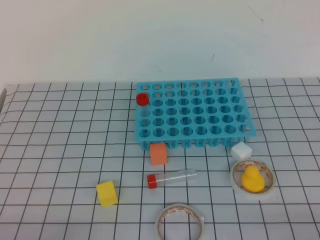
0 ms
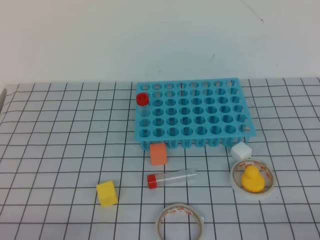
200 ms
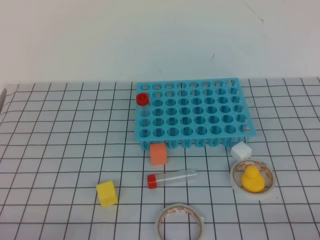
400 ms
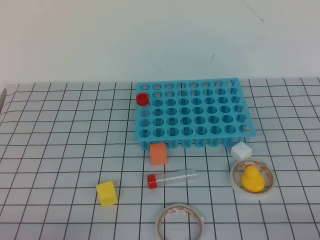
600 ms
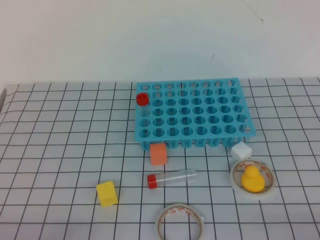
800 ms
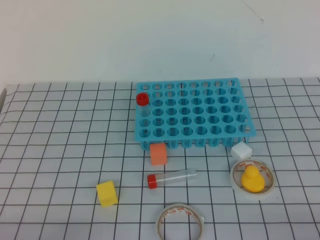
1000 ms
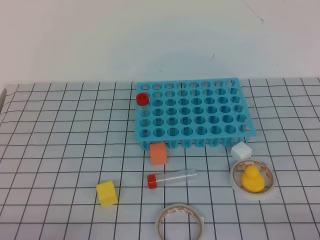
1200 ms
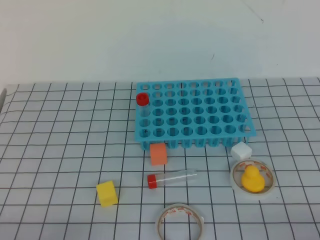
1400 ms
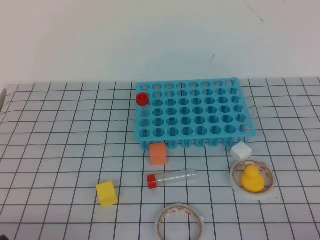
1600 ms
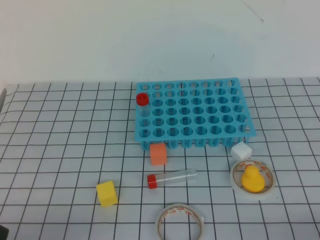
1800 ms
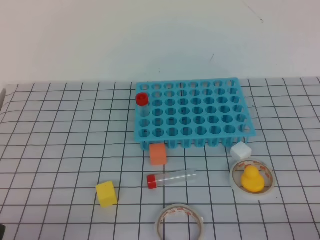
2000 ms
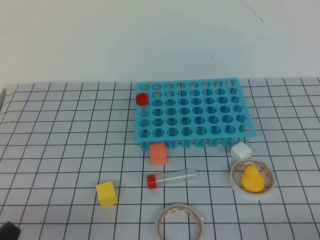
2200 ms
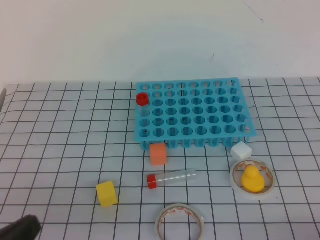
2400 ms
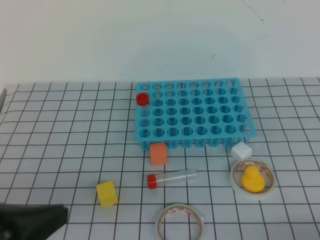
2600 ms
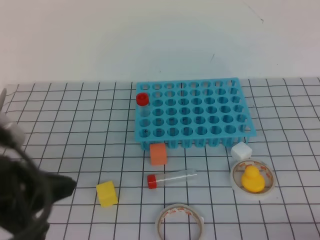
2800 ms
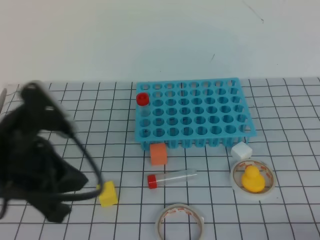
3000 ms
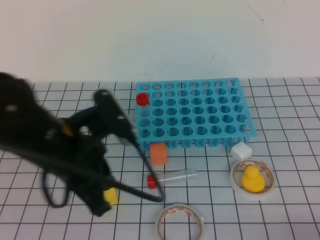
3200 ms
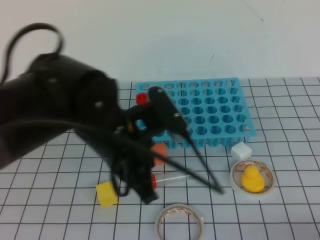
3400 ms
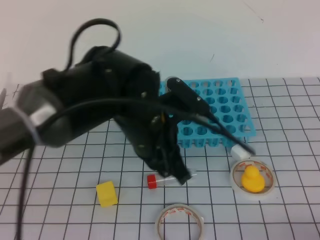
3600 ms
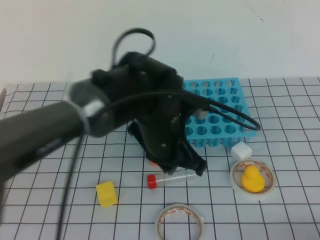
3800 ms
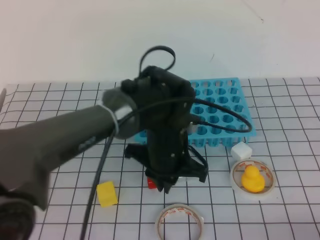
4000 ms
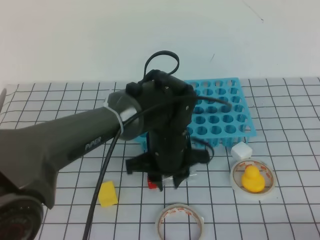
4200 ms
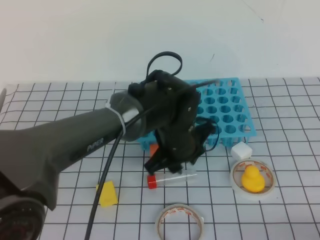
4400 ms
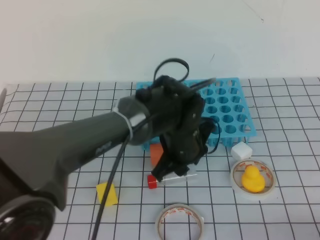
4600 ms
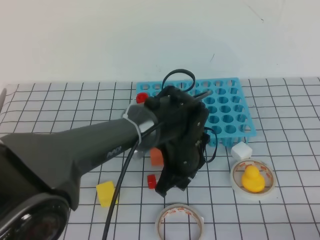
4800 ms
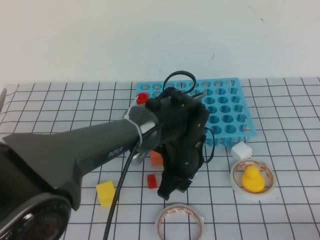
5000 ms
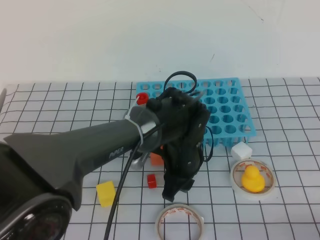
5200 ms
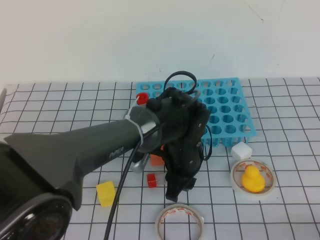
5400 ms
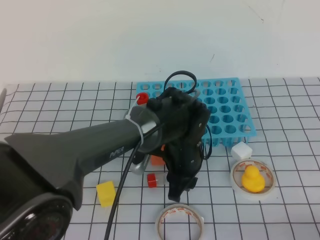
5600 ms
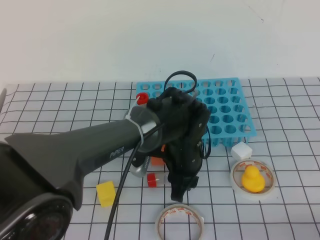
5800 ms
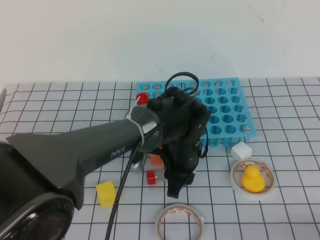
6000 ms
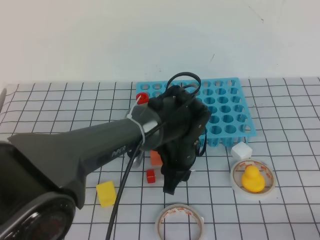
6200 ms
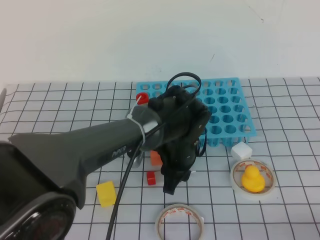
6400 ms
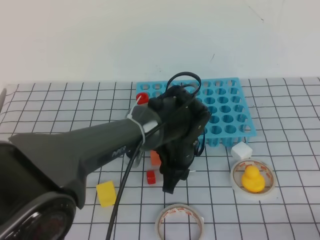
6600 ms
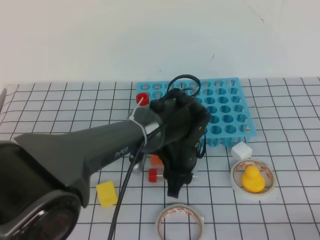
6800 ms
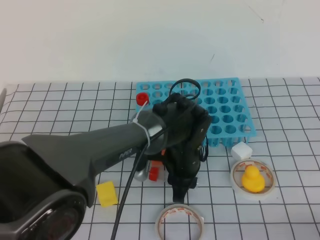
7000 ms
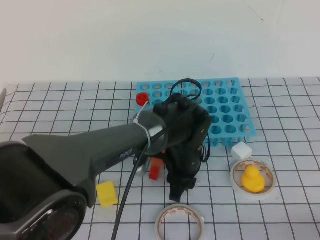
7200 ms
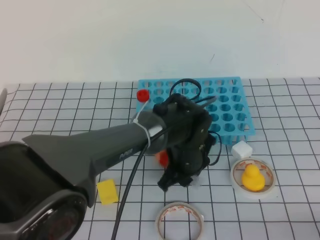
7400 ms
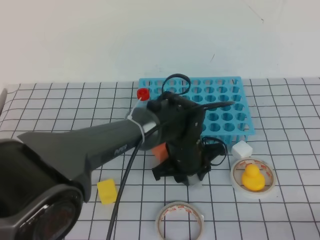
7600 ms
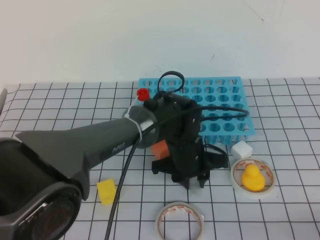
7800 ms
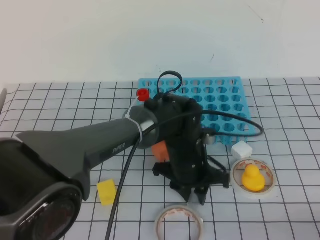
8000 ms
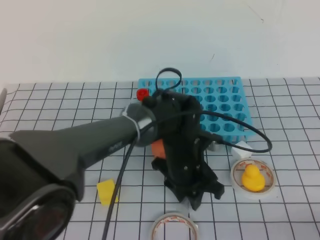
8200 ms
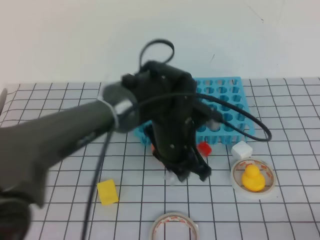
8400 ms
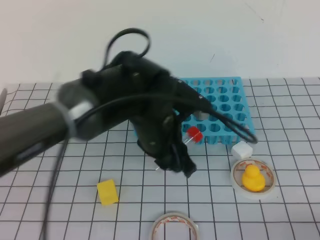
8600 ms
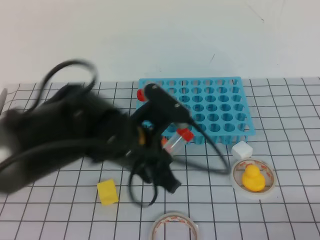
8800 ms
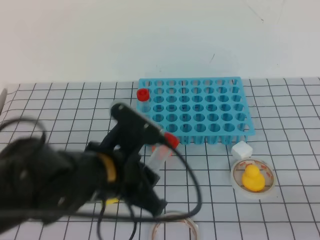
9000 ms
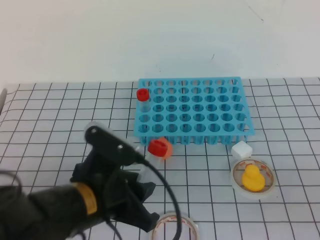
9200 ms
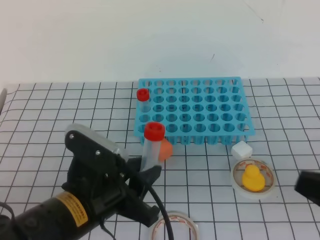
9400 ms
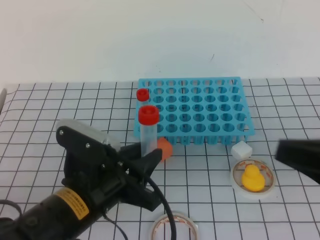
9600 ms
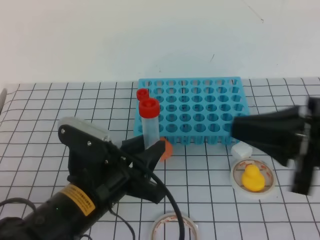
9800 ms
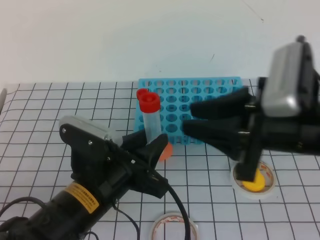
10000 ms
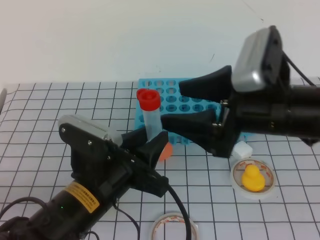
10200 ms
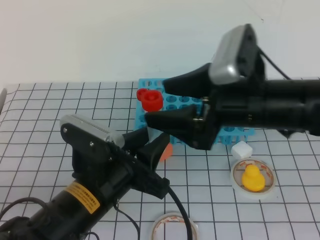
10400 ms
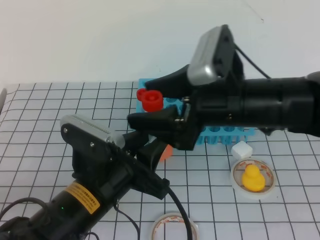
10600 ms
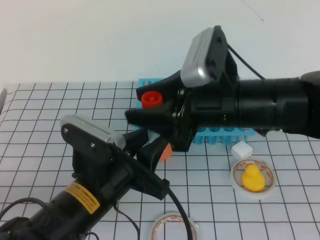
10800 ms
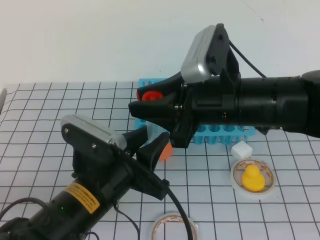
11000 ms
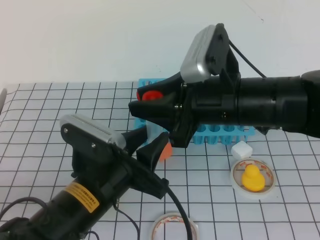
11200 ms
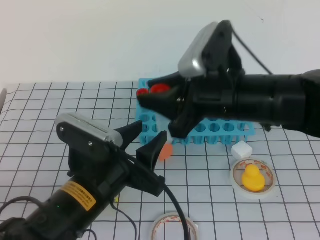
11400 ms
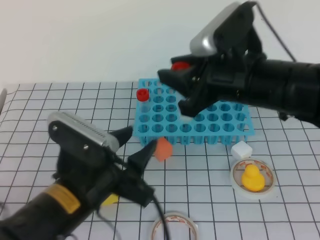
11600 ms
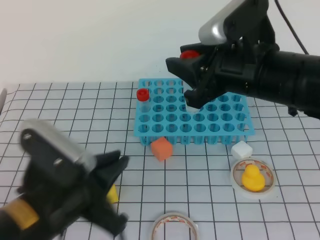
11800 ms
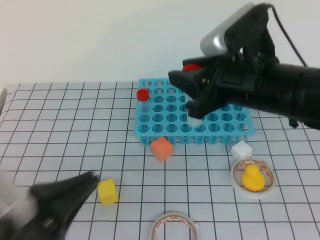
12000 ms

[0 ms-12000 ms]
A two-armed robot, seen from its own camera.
1600 ms to 3000 ms: The left gripper heads upward and forward, covering about 20 cm.
3000 ms to 4400 ms: The left gripper goes about 30 cm to the right, forward and downward, and opens its fingers.
7600 ms to 9000 ms: The left gripper moves upward, backward and to the left, roughly 20 cm.
9000 ms to 10400 ms: The right gripper moves forward, to the left and upward, about 30 cm, and opens its fingers, while the left gripper changes place by some 5 cm.
10400 ms to 12000 ms: The left gripper moves backward and to the left, about 10 cm, and closes, while the right gripper closes up.

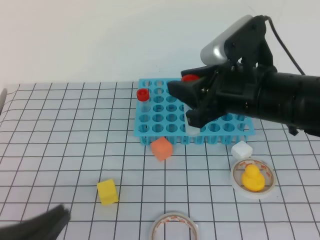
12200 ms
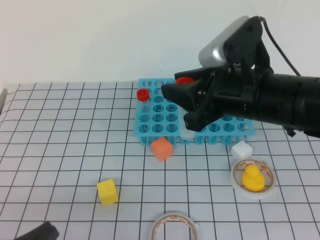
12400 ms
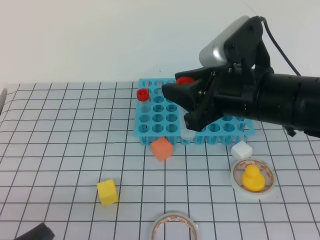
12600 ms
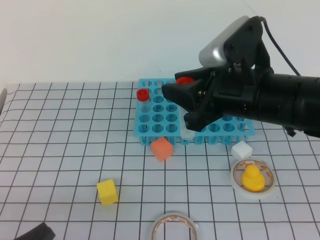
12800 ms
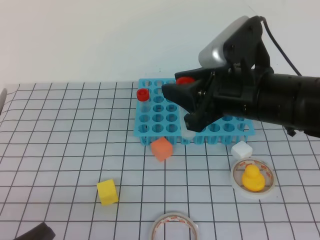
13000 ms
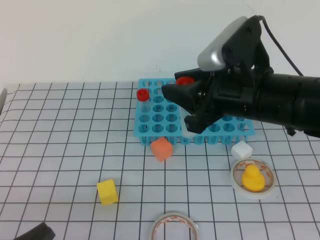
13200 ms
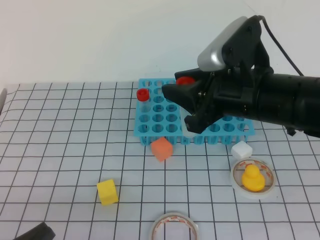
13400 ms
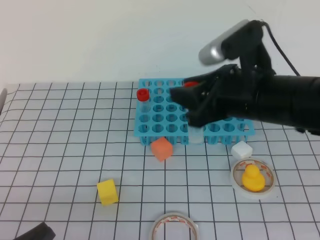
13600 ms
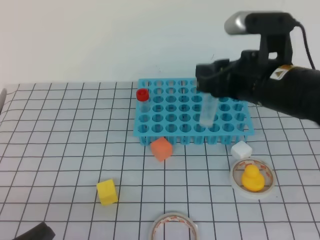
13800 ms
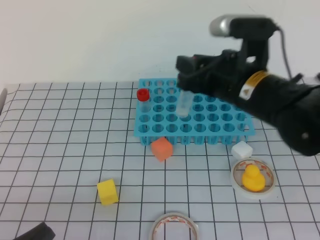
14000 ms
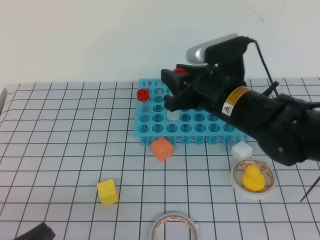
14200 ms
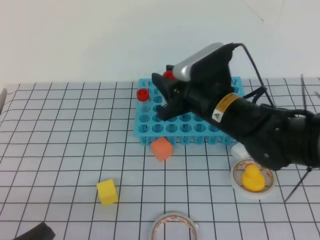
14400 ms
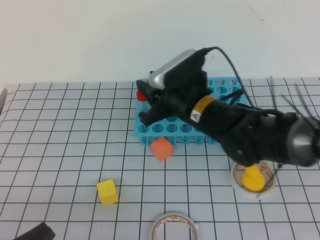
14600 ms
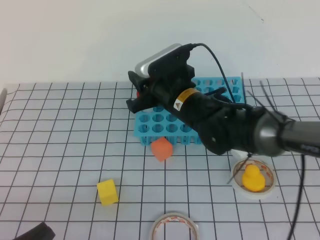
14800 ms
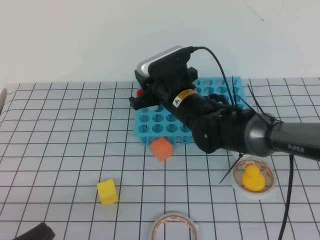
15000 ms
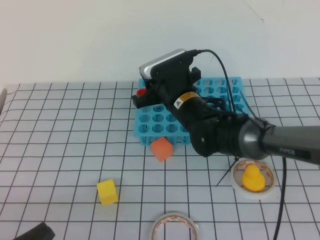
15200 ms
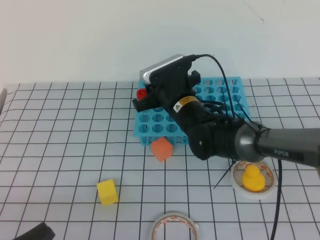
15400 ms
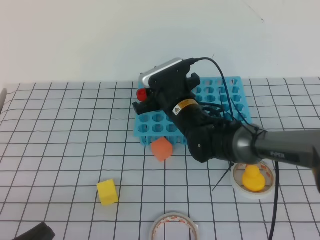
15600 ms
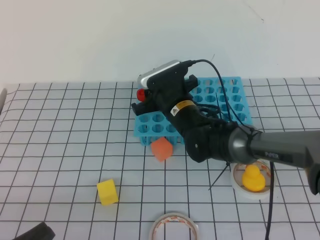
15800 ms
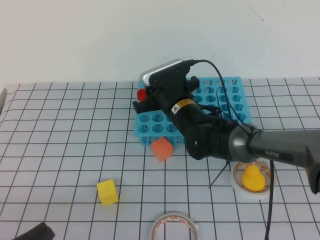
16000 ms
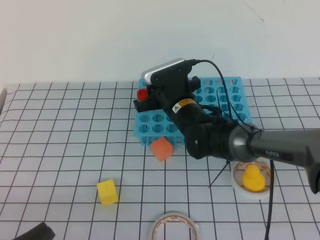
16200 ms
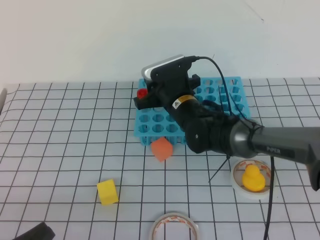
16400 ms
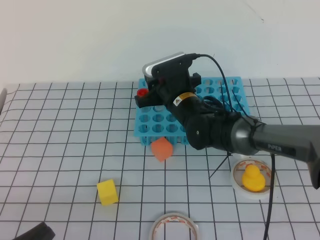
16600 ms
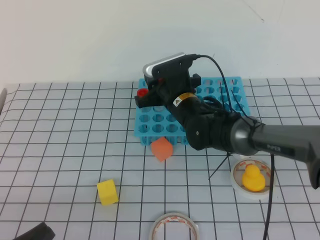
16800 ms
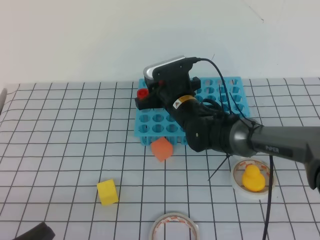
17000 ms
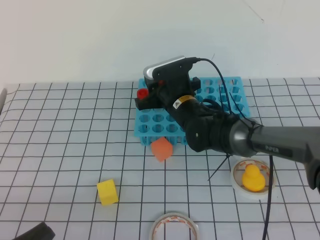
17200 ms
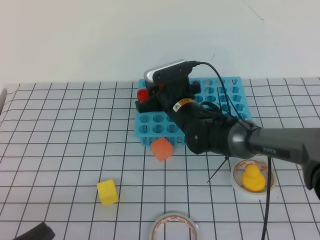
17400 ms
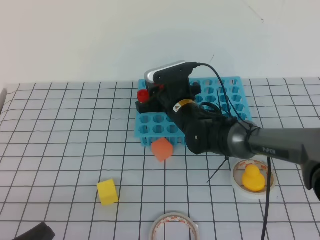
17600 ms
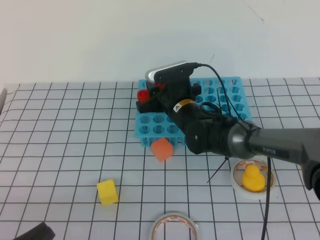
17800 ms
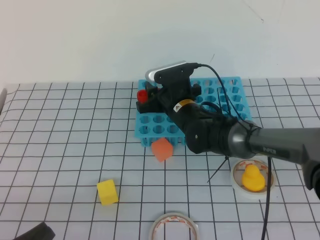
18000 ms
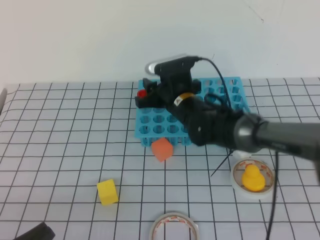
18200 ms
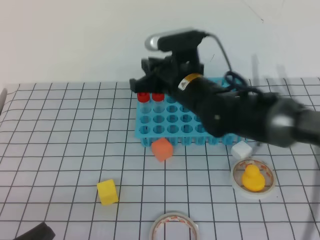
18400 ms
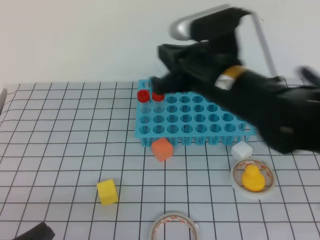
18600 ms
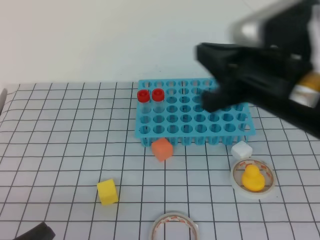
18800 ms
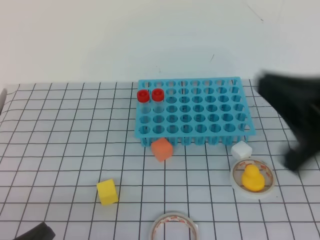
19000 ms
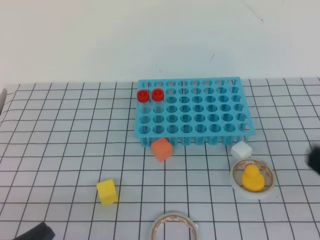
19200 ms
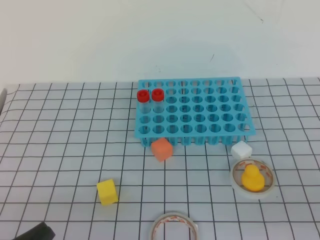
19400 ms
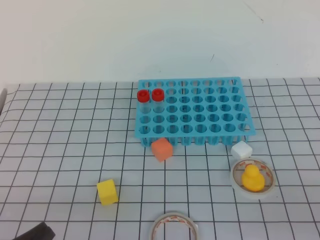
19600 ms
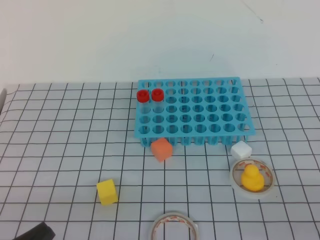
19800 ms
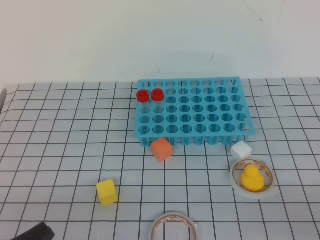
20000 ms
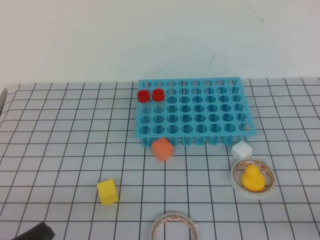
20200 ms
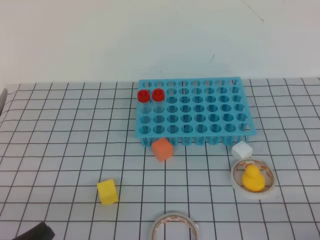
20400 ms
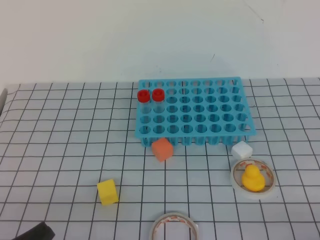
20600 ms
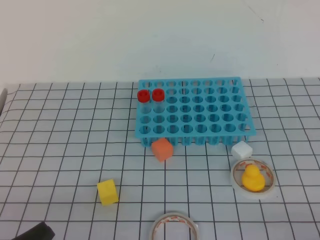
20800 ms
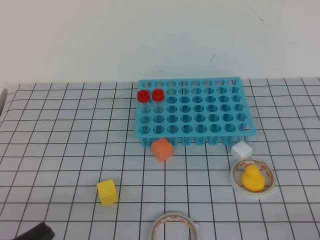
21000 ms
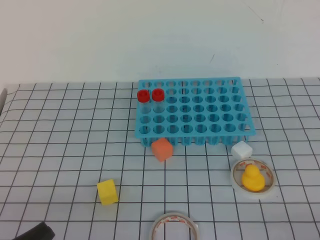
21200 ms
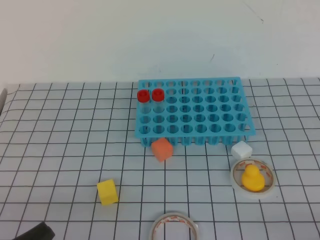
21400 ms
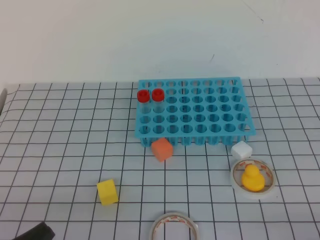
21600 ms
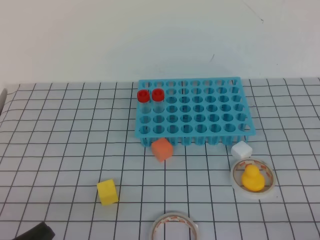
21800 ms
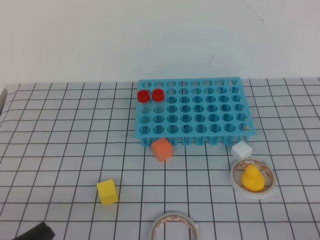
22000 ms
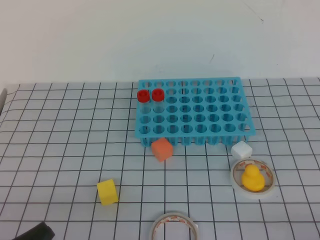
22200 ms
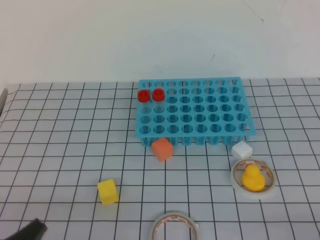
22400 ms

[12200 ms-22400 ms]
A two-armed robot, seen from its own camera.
12200 ms to 13600 ms: The left gripper shifts by some 5 cm.
13600 ms to 15200 ms: The right gripper is displaced forward, downward and to the left by some 20 cm.
15200 ms to 18000 ms: There are only small adjustments of the grippers.
18000 ms to 19400 ms: The right gripper shifts approximately 40 cm backward, to the right and upward, and closes its fingers.
